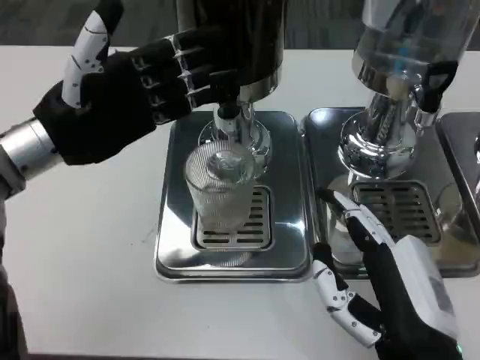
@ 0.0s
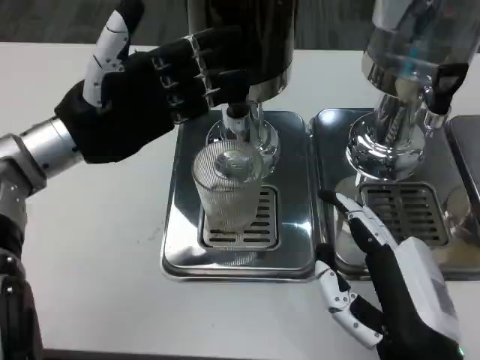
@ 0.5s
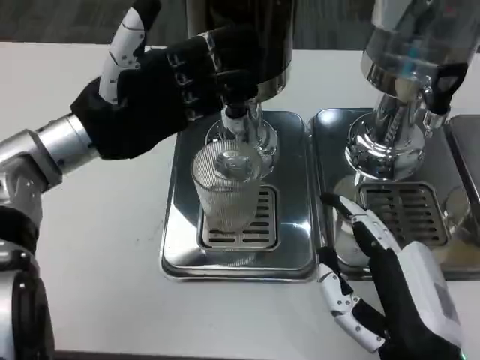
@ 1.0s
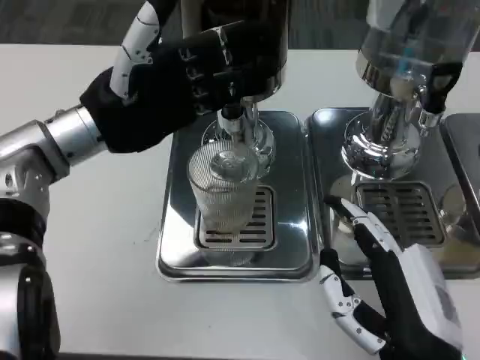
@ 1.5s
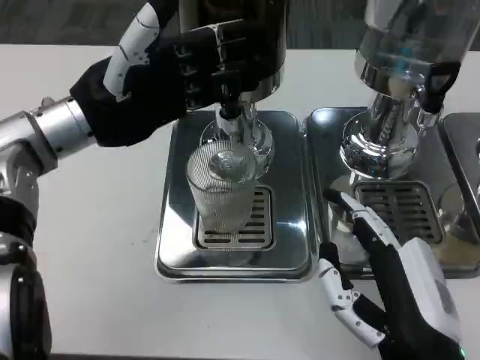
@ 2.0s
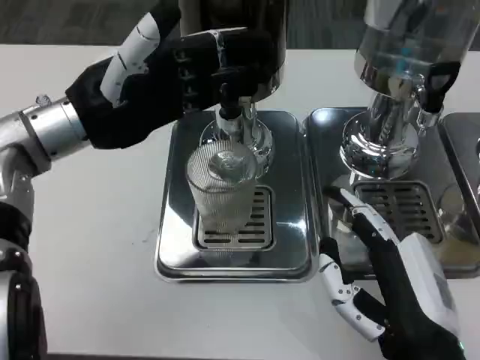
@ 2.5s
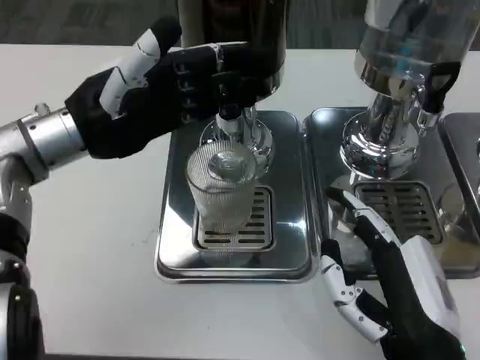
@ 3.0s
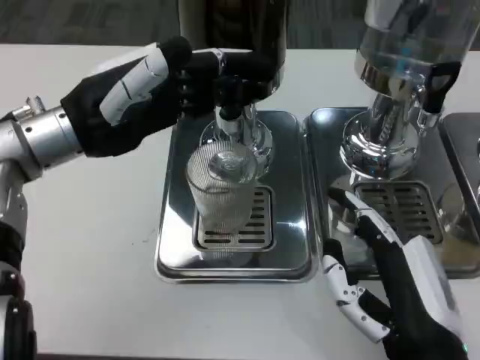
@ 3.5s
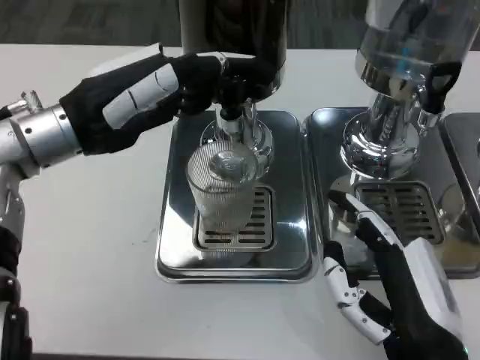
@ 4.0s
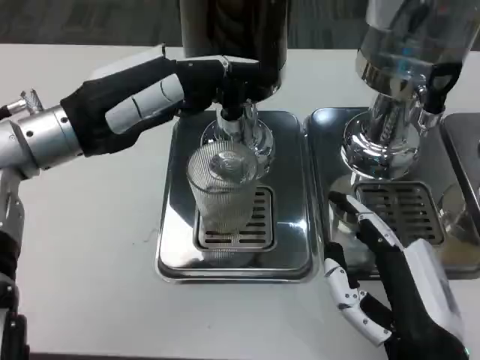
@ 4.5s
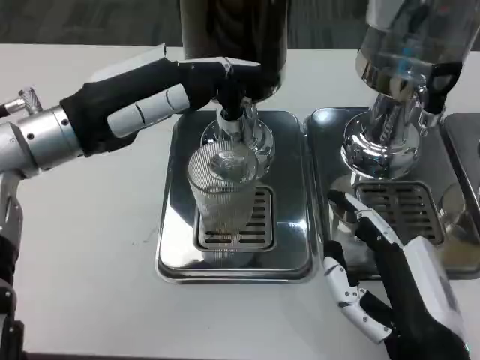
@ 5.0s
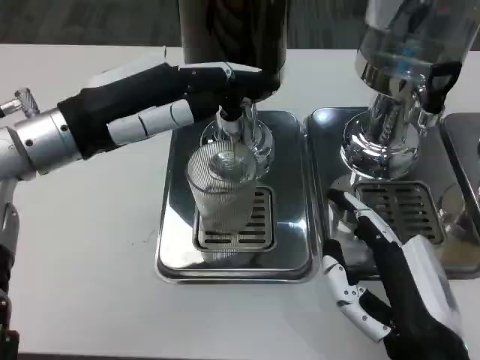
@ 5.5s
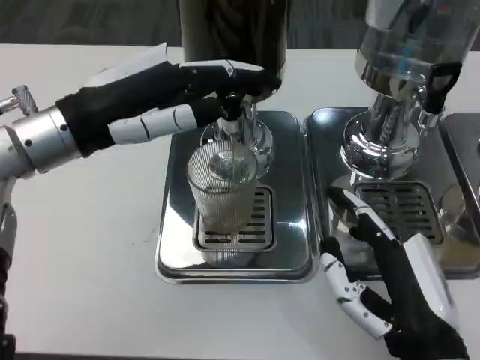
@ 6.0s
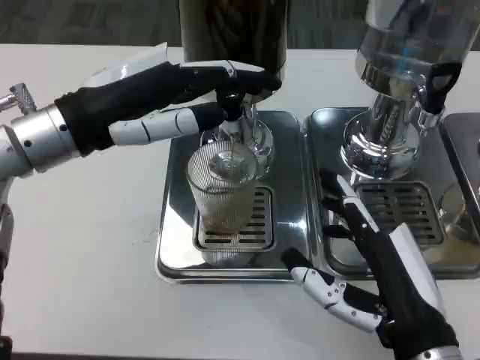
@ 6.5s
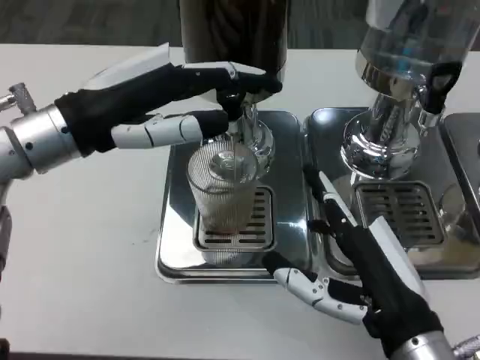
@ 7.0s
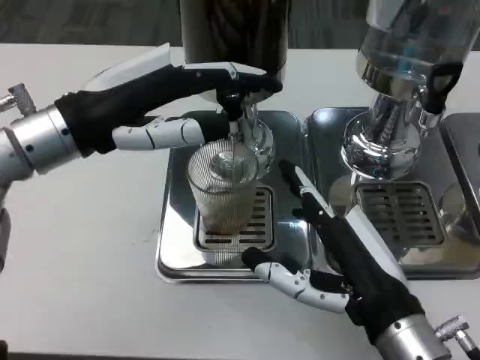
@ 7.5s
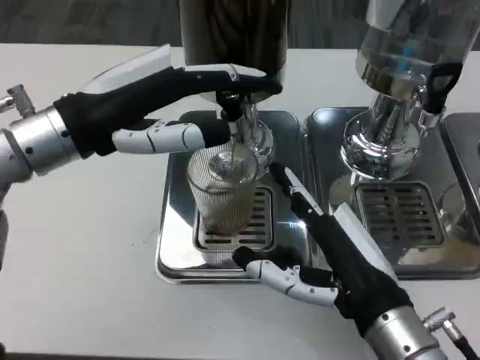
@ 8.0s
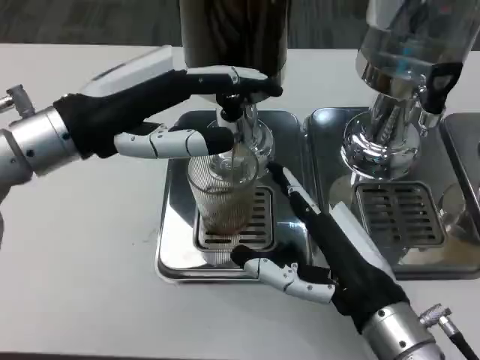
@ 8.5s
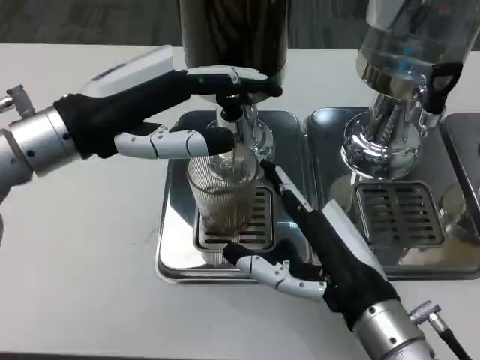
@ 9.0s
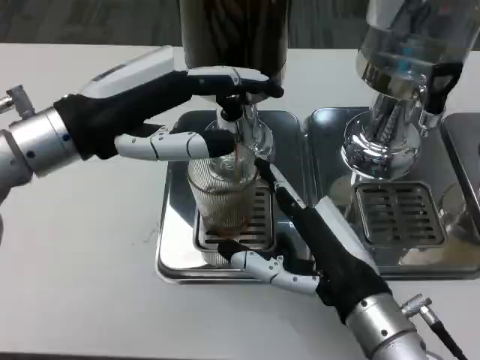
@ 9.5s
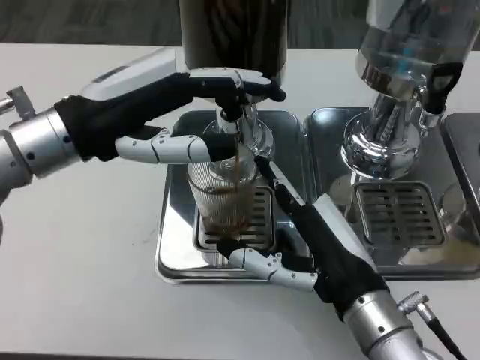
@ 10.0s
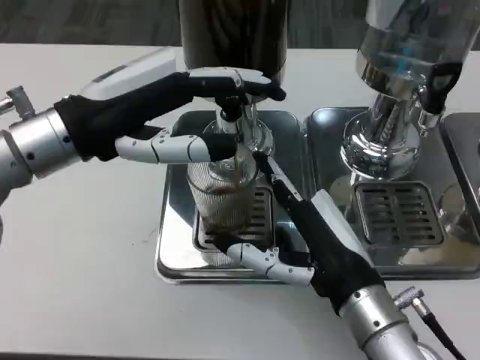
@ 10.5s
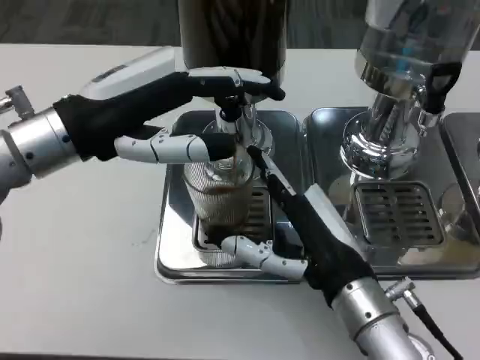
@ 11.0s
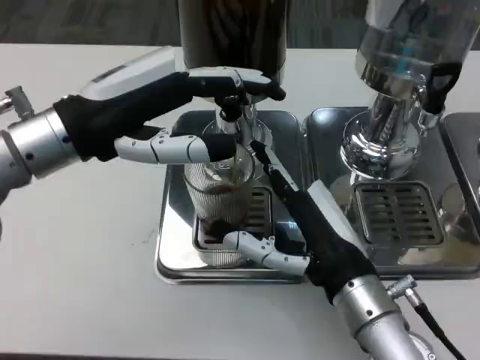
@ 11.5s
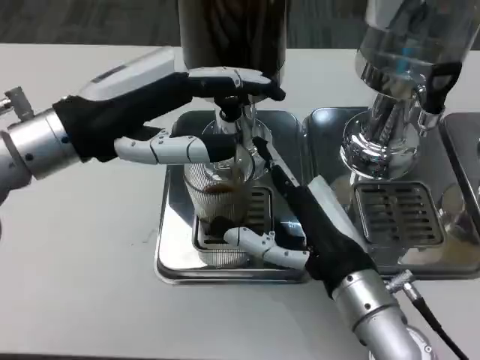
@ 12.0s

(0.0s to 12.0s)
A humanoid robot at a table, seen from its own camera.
Task of the whole recording: Grasp the cup under the faucet to collect the drink, then remove the cup.
4.0s - 6.0s: There are only small adjustments of the hands.
6.0s - 8.0s: The hands make only small movements.
8.0s - 12.0s: The hands move only a little.

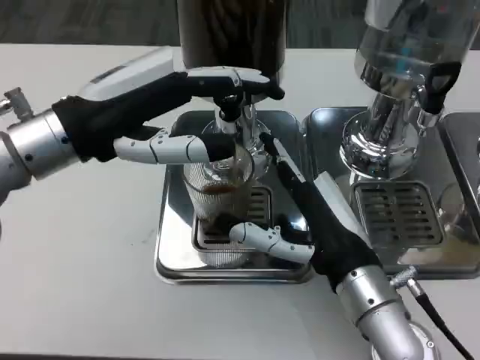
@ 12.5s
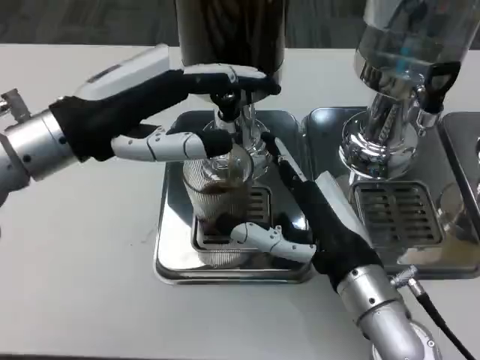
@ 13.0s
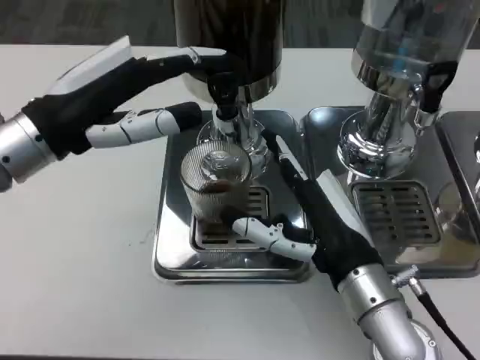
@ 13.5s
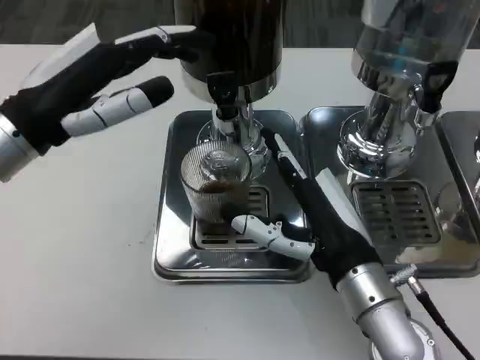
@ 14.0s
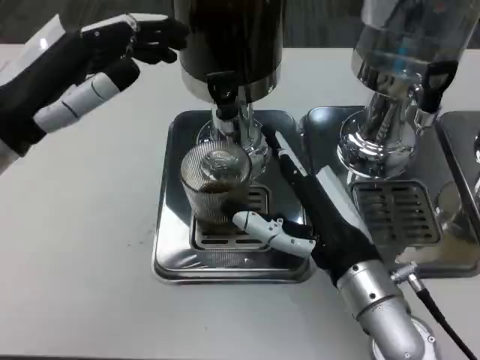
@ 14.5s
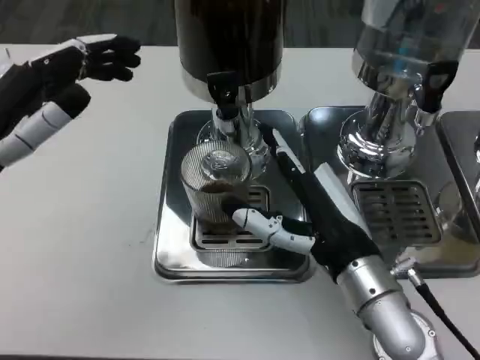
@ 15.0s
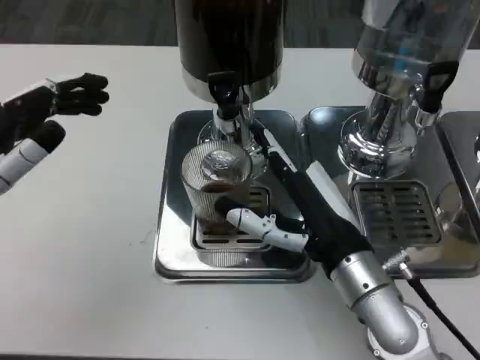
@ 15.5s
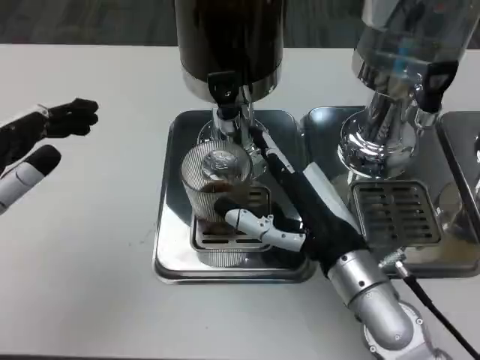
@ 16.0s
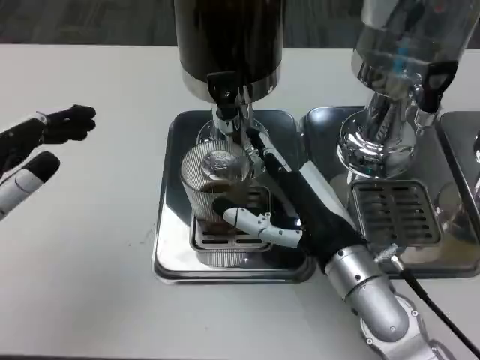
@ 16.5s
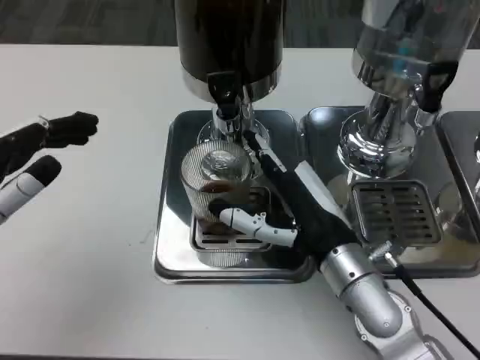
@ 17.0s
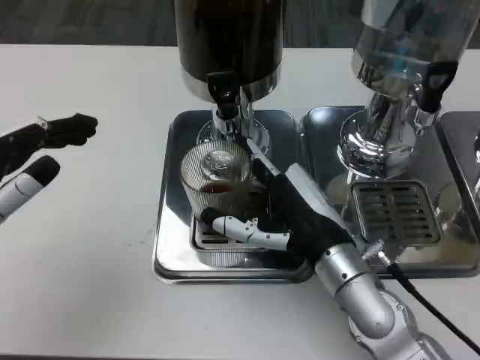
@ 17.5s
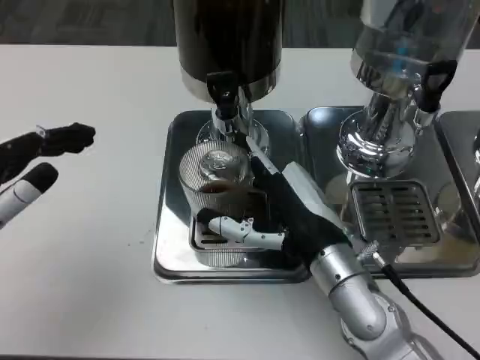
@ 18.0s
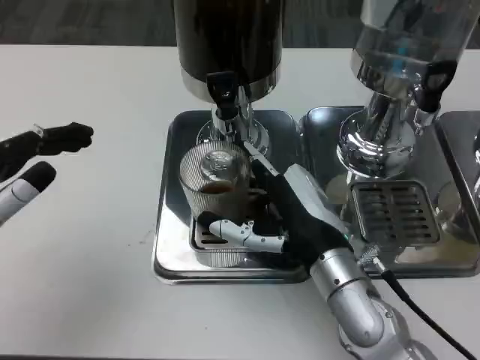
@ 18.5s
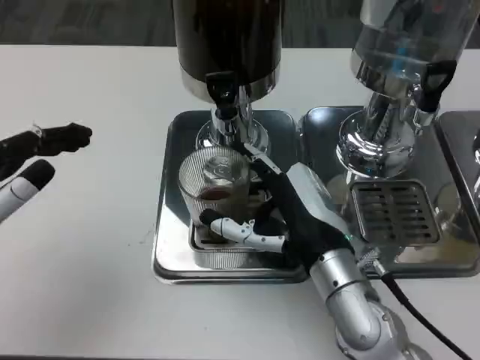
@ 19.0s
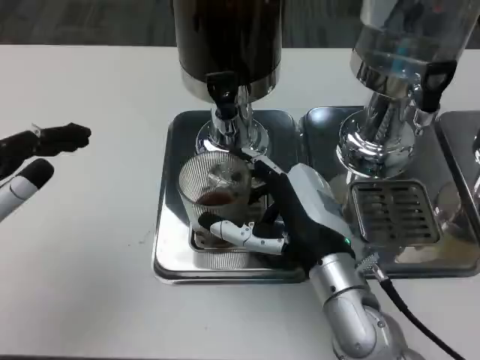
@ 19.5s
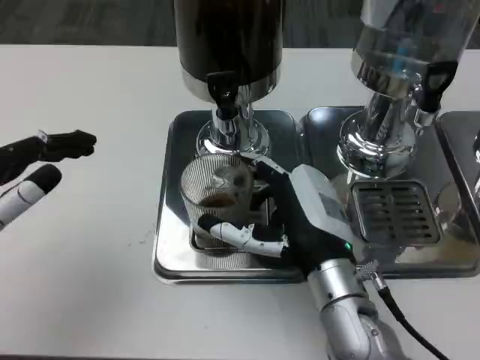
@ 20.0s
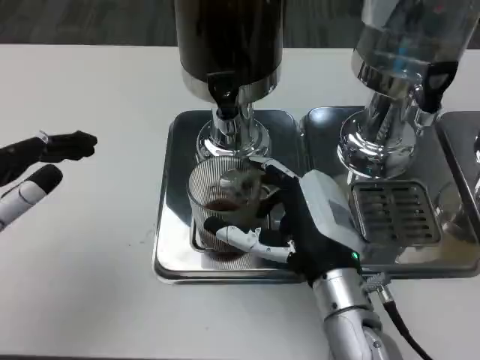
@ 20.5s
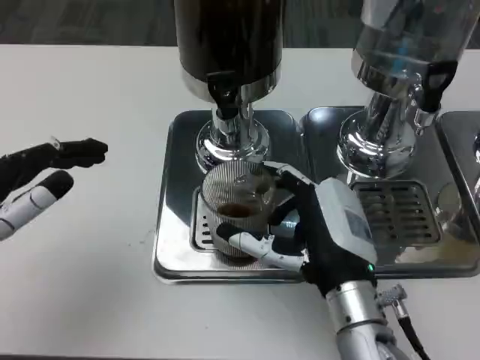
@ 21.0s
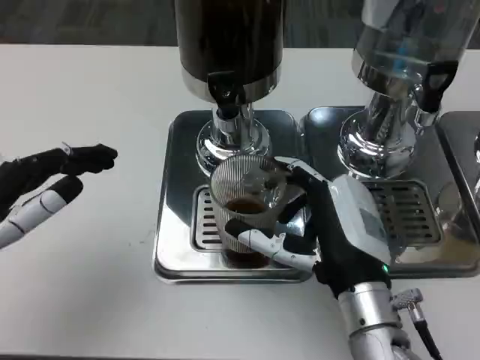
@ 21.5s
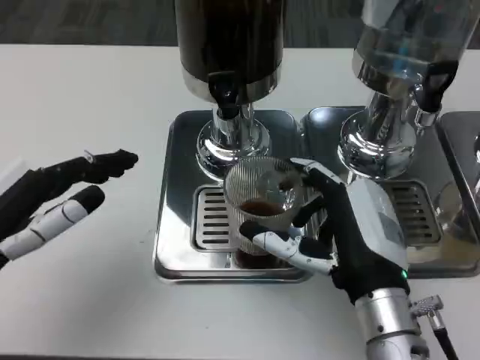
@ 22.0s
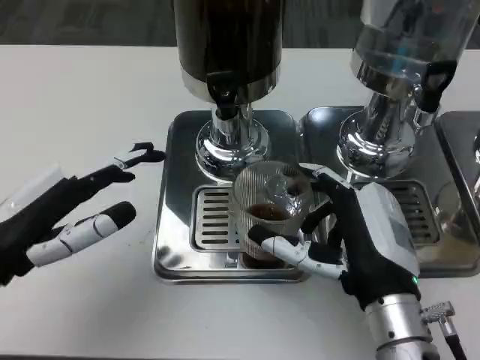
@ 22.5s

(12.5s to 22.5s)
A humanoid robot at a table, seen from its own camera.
Task of the whole recording: Grasp the cup under the faucet to collect the drink, then remove the cup.
12.5s - 14.5s: The left hand changes place by approximately 5 cm.
14.5s - 16.5s: The left hand heads backward and downward, covering about 10 cm.
16.5s - 20.5s: There are only small adjustments of the hands.
20.5s - 22.5s: The right hand shifts by approximately 5 cm.

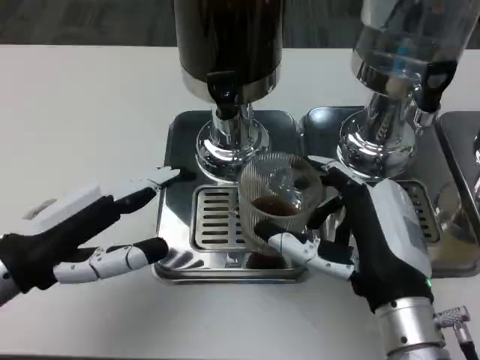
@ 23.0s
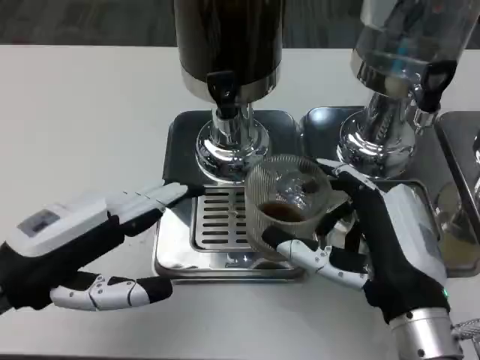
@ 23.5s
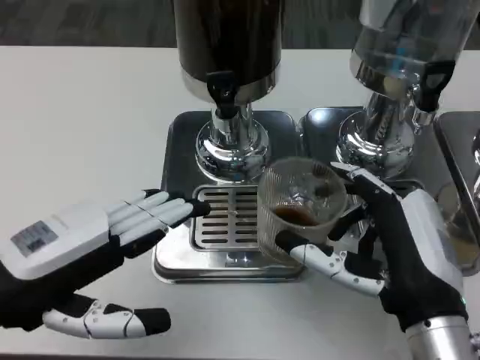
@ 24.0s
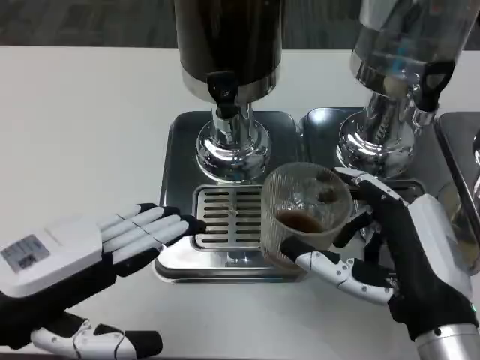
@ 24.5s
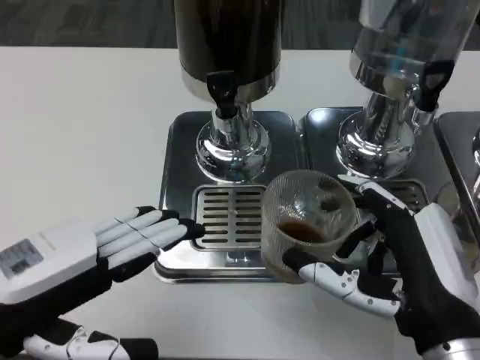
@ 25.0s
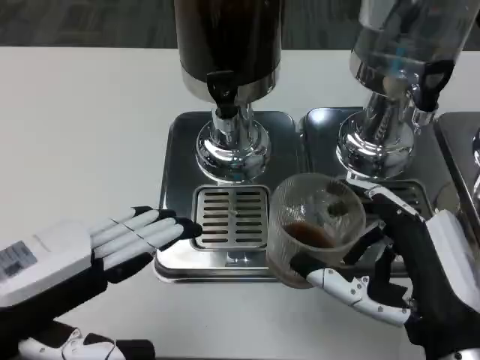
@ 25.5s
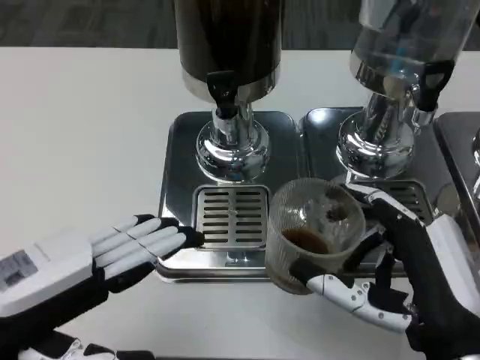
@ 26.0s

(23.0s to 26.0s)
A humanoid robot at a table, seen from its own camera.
Task of the whole recording: Grasp the cup under the faucet to collect the drink, then remove the cup.
23.0s - 24.5s: The left hand changes place by approximately 5 cm.
24.5s - 26.0s: The hands move only a little.

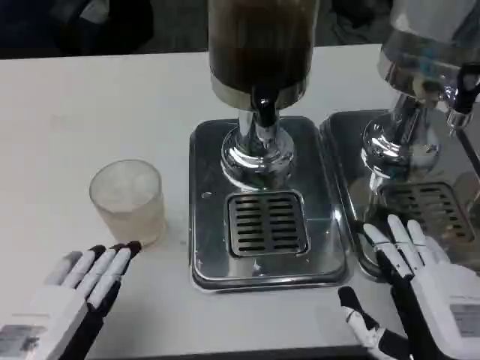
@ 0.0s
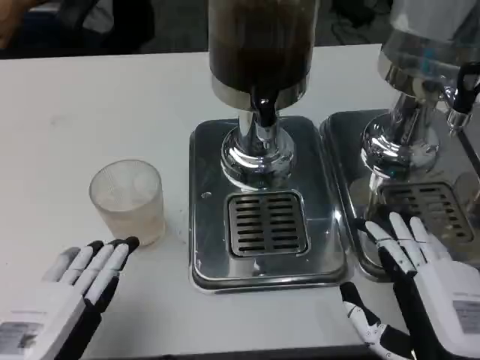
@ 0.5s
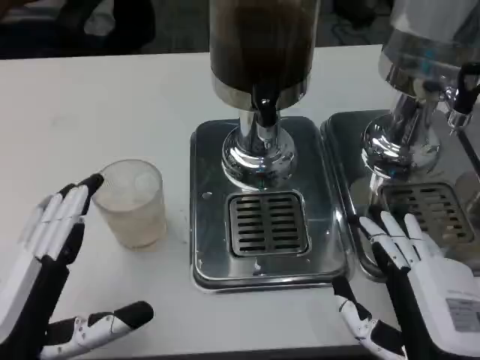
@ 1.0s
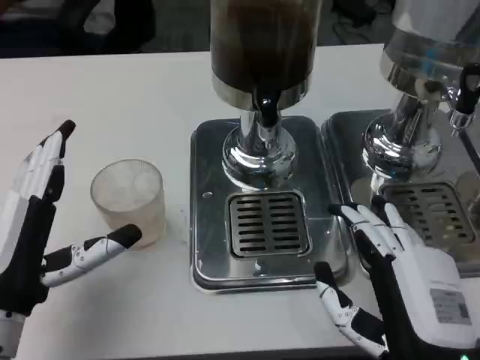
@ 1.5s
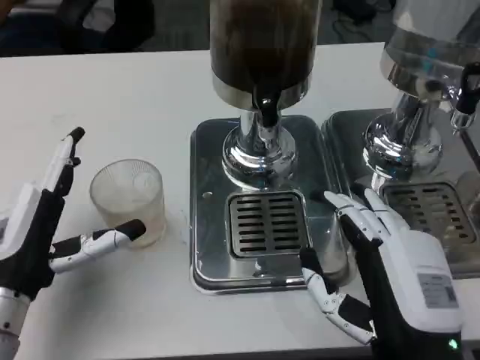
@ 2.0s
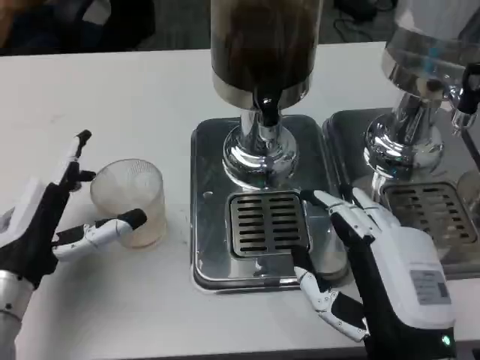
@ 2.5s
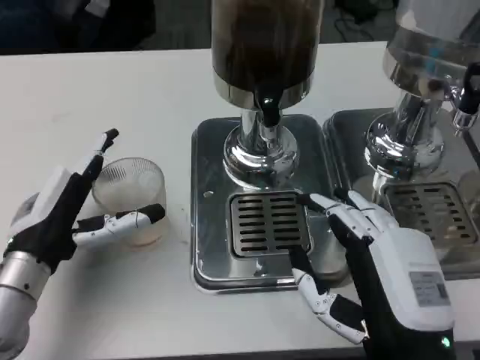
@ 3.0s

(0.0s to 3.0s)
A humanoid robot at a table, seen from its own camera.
Task of the whole recording: Grasp the cup under the faucet to collect the drink, then remove the cup.
0.0s - 1.5s: The left hand moves forward, roughly 10 cm.
1.5s - 3.0s: The left hand shifts roughly 5 cm forward.
